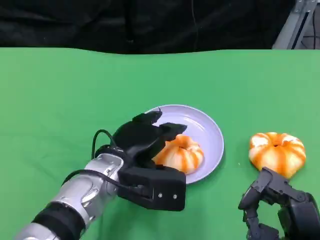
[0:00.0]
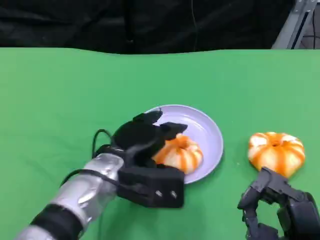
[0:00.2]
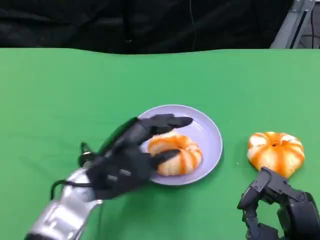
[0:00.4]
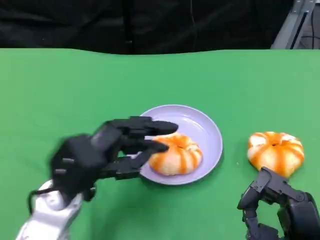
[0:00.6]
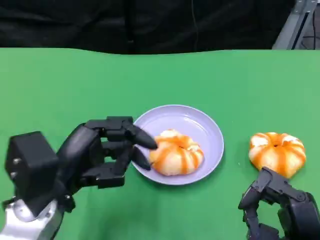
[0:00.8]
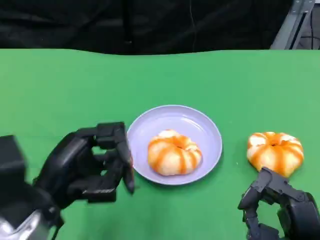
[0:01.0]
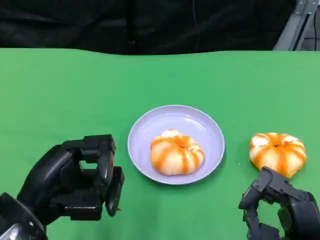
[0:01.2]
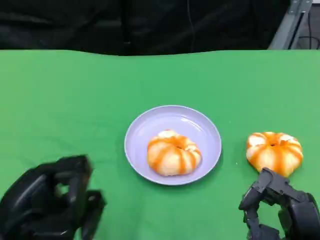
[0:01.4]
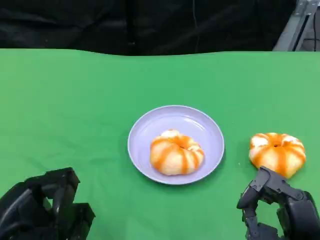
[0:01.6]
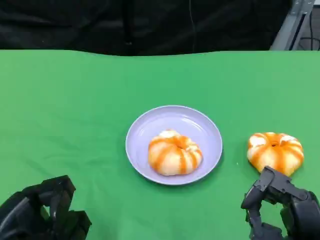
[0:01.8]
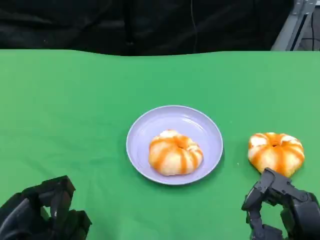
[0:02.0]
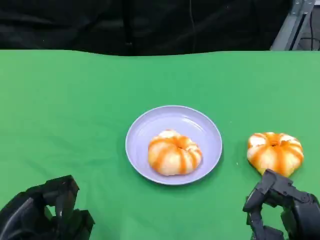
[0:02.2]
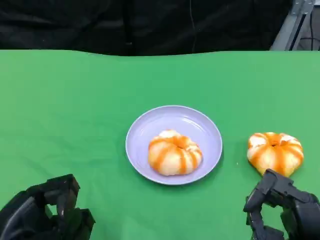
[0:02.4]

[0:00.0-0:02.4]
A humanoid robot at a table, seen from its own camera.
Task of the whole recording: Grasp the bread from the table and place it into the plate.
0:00.0 to 0:01.2: The left hand is displaced to the left and backward by roughly 15 cm.
0:01.2 to 0:02.4: The left hand moves about 5 cm.

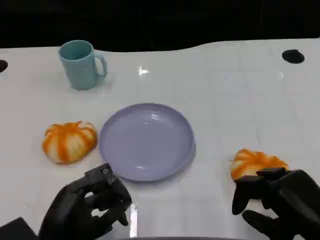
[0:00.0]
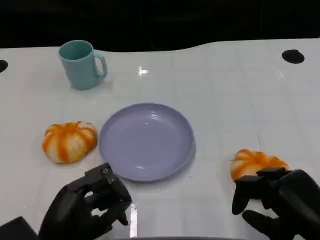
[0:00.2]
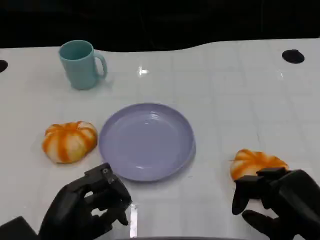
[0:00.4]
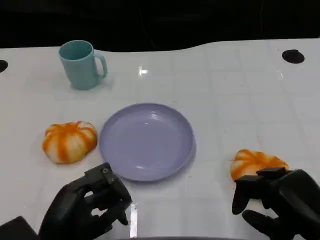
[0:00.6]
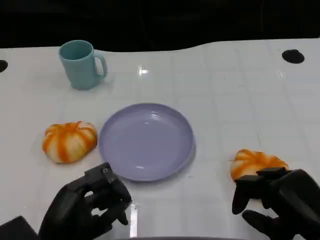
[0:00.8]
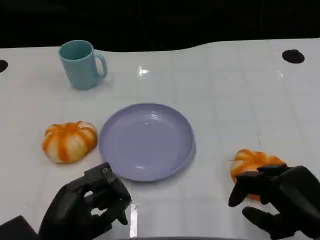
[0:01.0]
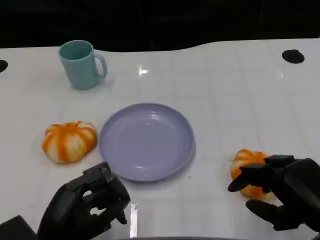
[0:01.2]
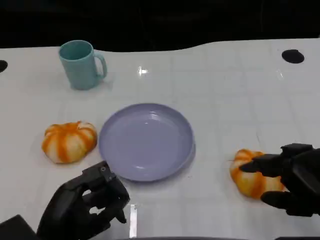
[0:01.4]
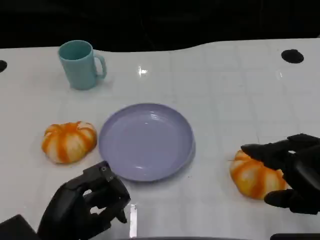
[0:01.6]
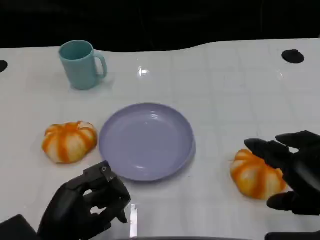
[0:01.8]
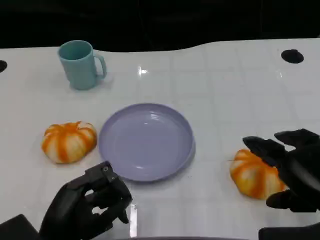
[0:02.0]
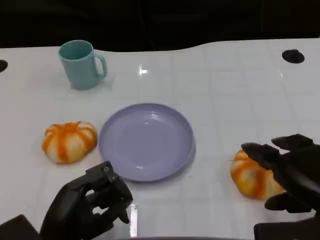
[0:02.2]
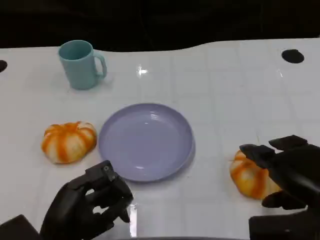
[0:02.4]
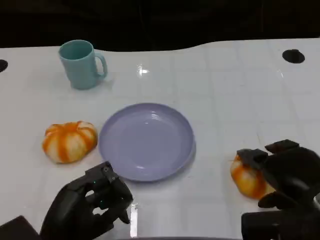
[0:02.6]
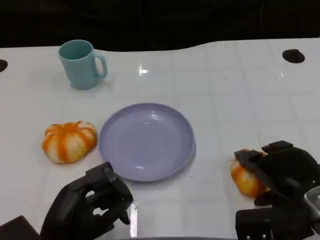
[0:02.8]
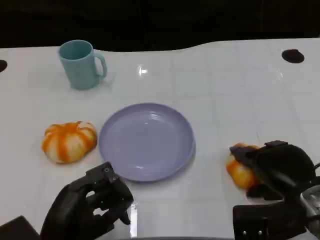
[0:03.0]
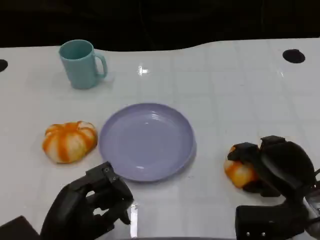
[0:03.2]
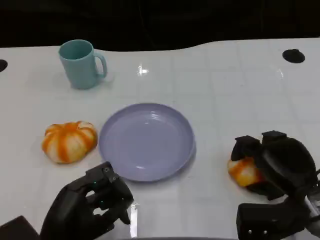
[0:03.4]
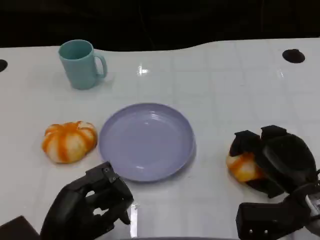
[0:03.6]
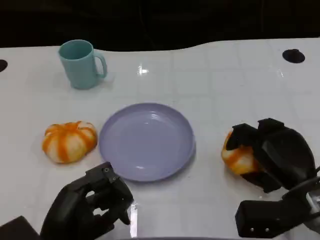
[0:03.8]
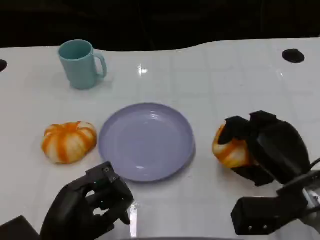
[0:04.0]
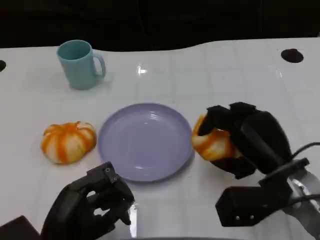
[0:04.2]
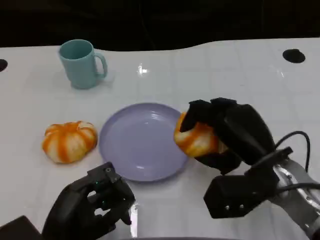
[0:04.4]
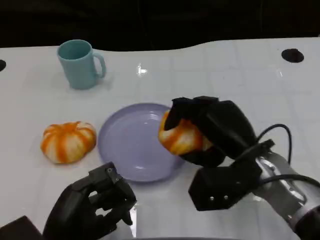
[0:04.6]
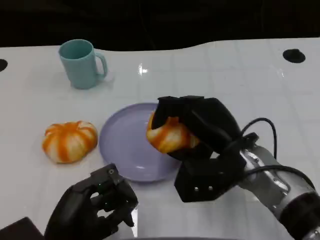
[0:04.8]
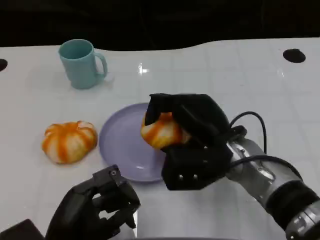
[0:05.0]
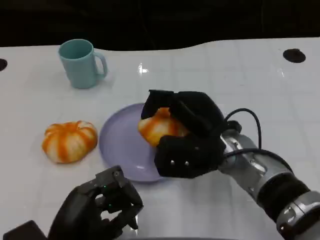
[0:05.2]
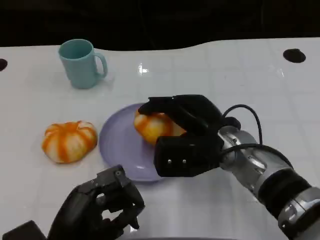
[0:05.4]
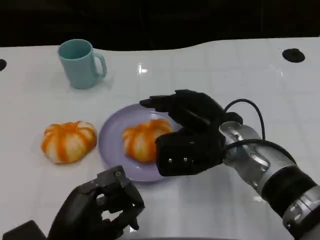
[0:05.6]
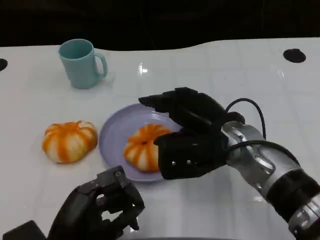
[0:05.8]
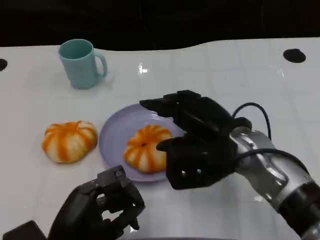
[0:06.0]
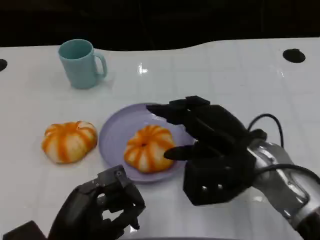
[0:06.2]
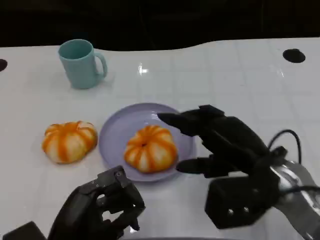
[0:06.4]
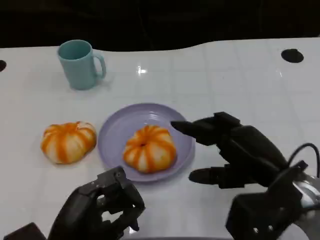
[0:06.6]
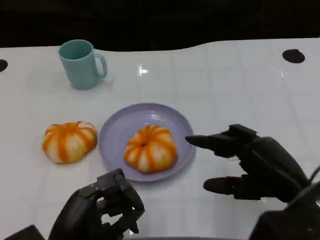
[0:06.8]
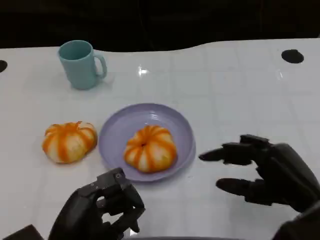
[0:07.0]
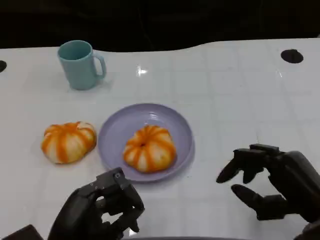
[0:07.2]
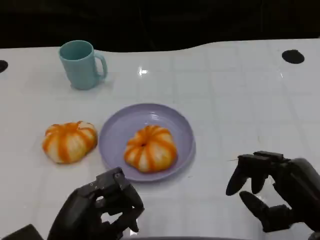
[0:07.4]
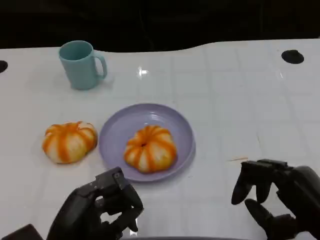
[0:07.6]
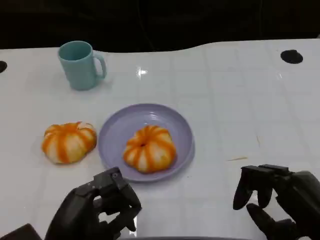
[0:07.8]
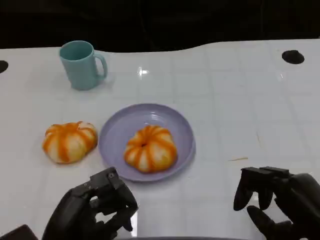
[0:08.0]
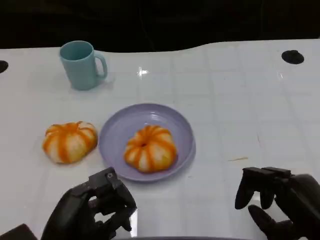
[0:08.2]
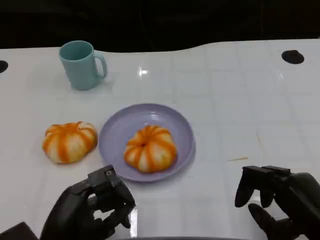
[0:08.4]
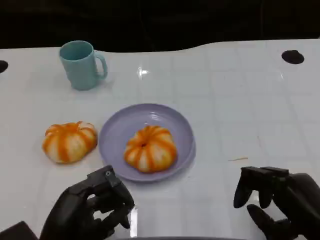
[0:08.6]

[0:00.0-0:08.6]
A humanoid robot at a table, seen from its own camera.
Task of the whole recording: Grasp the bread from the table and place it into the plate.
0:00.0 to 0:01.4: The right hand is displaced upward by some 5 cm.
0:01.4 to 0:02.8: The right hand moves forward and downward, approximately 10 cm.
0:02.8 to 0:04.4: The right hand is displaced to the left by about 5 cm.
0:04.4 to 0:05.8: The right hand heads to the left, covering some 5 cm.
0:05.8 to 0:07.2: The right hand is displaced to the right and backward by some 15 cm.
0:07.2 to 0:08.6: The hands stay close to where they were, moving slightly.

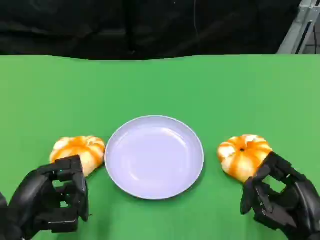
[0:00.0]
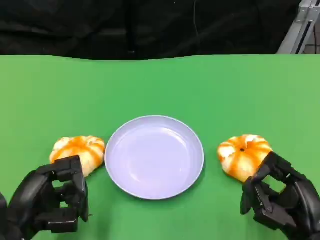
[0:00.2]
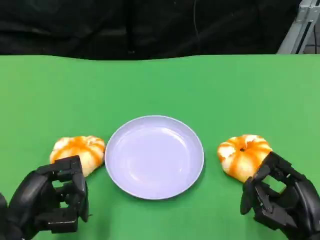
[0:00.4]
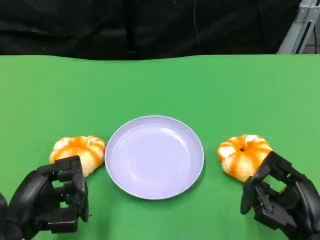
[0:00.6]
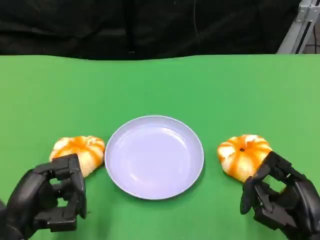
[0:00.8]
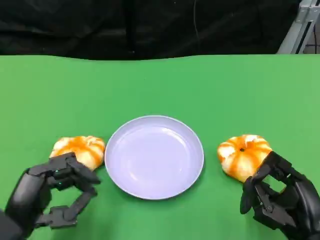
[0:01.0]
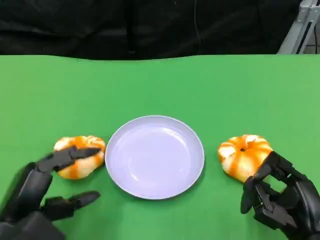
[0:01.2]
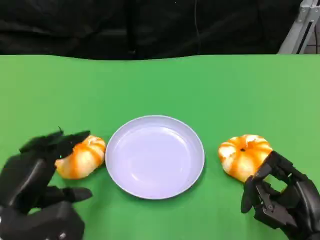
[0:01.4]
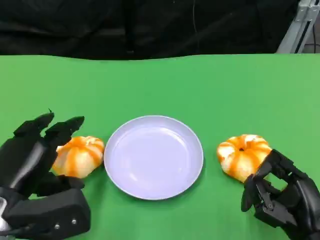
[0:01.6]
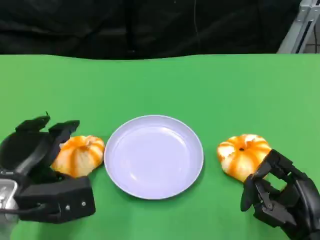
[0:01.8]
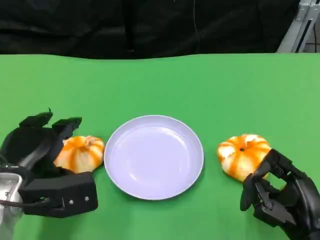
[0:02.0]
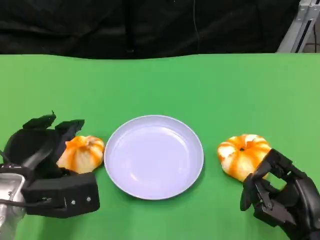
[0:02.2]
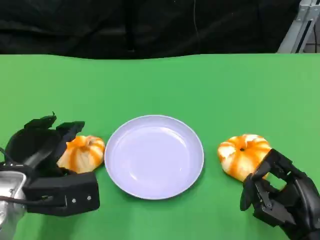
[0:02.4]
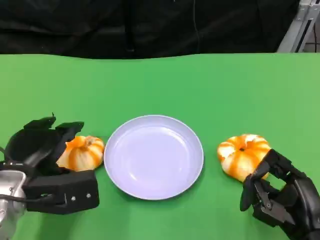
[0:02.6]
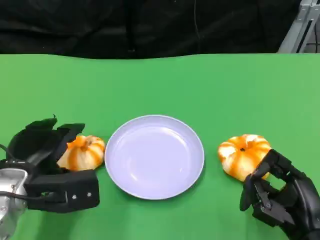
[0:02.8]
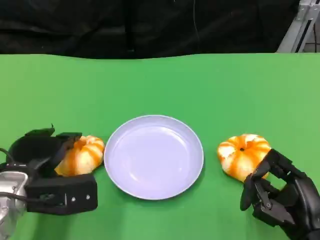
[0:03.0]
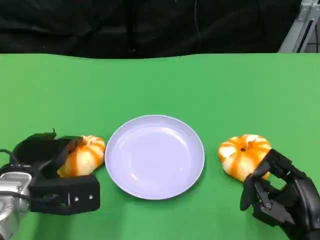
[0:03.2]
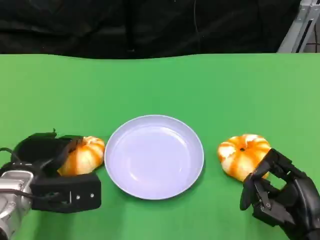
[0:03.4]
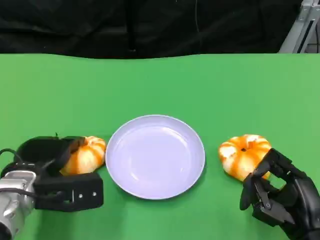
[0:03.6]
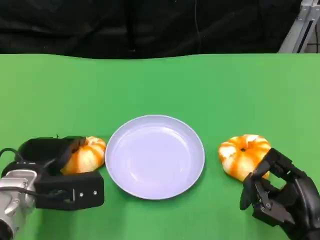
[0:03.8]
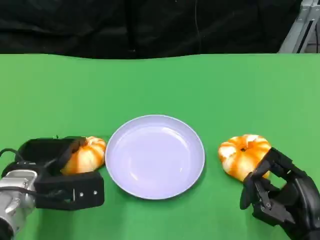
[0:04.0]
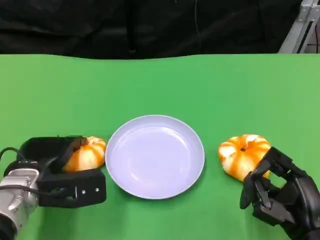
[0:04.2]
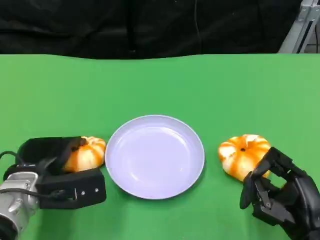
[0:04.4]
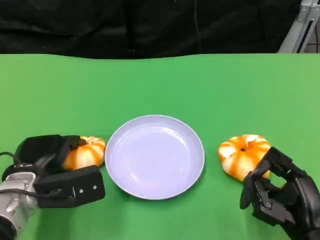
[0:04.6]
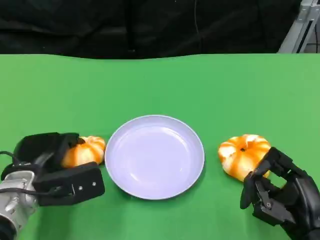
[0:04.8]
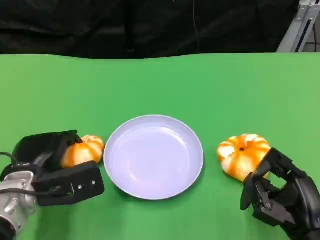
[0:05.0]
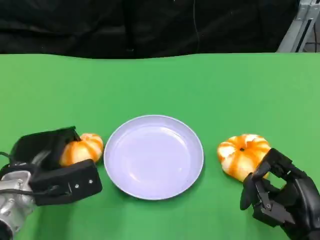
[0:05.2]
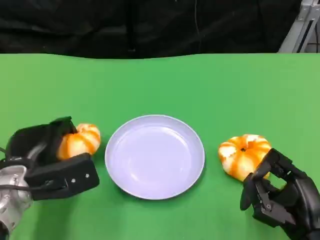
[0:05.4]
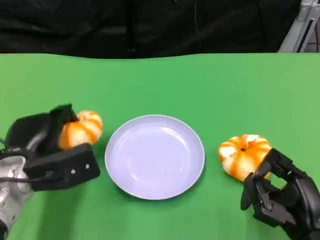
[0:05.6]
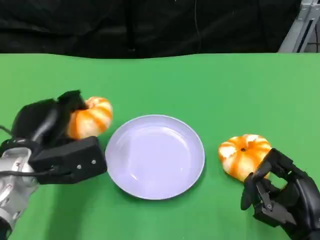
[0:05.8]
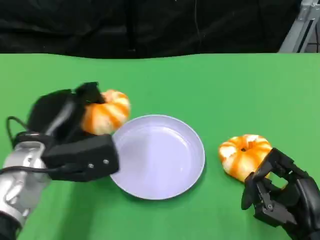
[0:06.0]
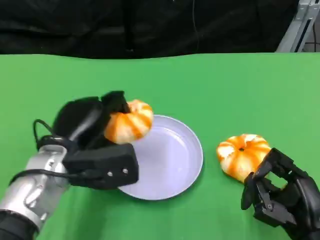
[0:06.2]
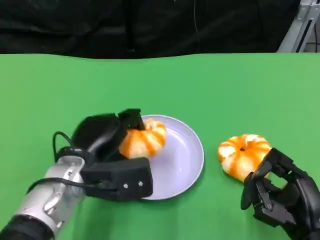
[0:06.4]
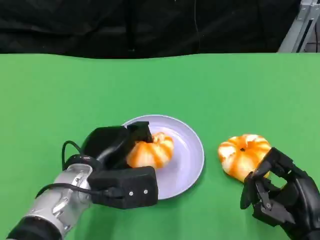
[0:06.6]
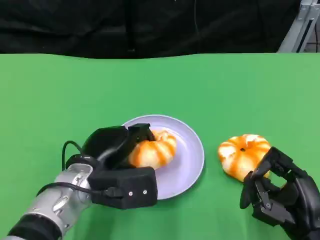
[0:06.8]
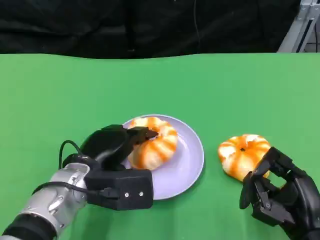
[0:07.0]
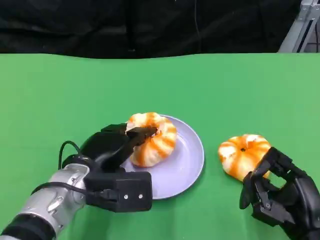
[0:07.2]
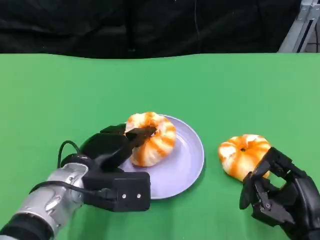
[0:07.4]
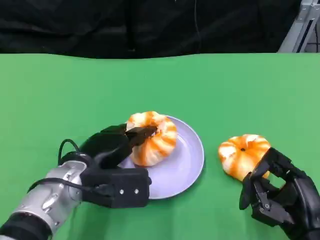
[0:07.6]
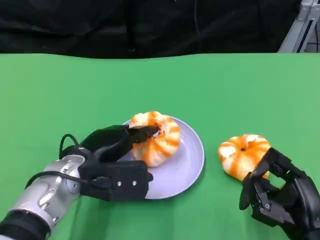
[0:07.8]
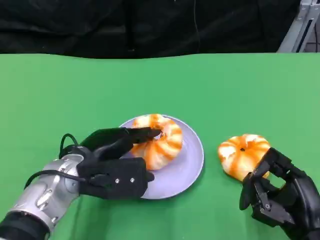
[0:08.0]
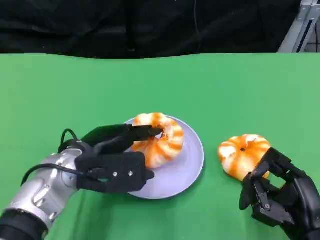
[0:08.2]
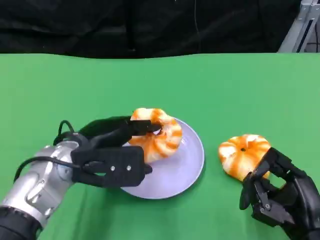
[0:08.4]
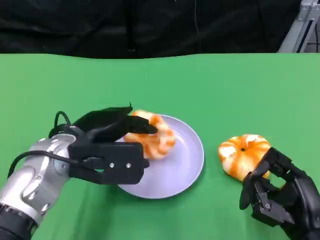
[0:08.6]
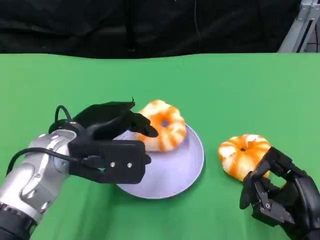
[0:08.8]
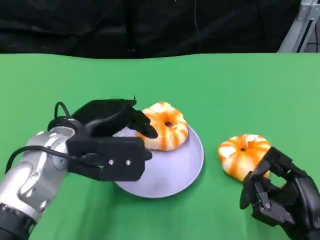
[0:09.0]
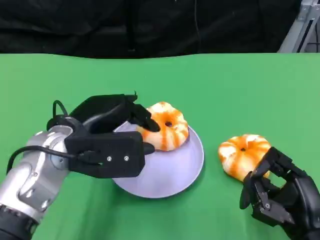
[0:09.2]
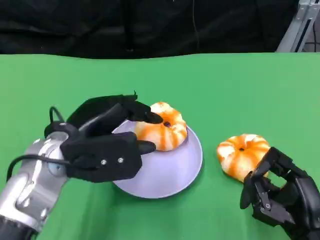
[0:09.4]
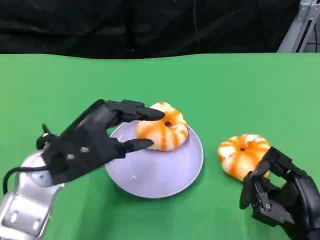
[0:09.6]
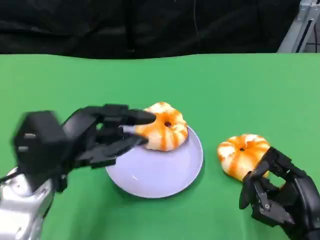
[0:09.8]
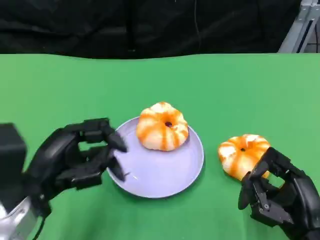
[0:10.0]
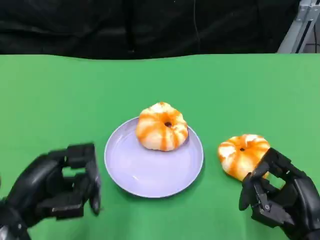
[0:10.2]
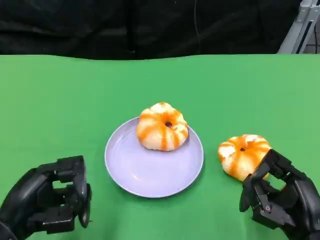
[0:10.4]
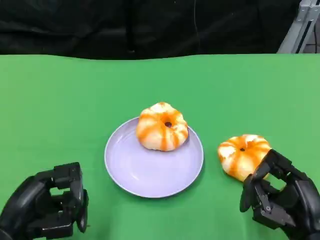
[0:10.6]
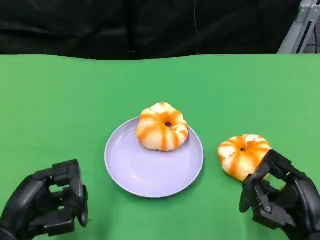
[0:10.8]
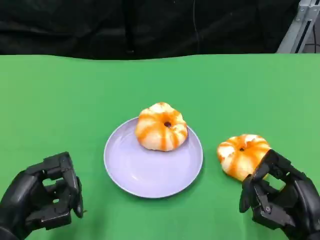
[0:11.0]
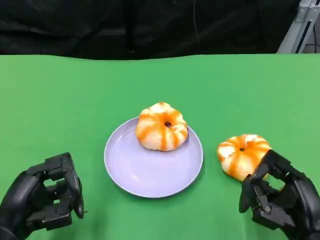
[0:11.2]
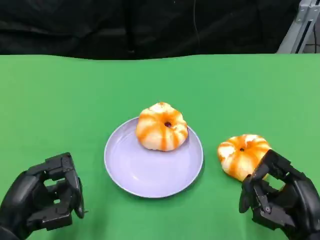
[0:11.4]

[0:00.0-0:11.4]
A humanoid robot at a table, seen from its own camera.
Task of the whole recording: Grasp the bread from the table and place it into the plate.
0:01.4 to 0:02.8: The left hand heads forward, covering roughly 5 cm.
0:02.8 to 0:05.6: The hands move only a little.
0:05.6 to 0:07.2: The left hand moves to the right, roughly 10 cm.
0:07.2 to 0:08.6: The left hand travels upward by approximately 5 cm.
0:08.6 to 0:10.0: The left hand heads backward and to the left, covering roughly 10 cm.
0:10.0 to 0:11.4: The left hand shifts roughly 5 cm downward.
